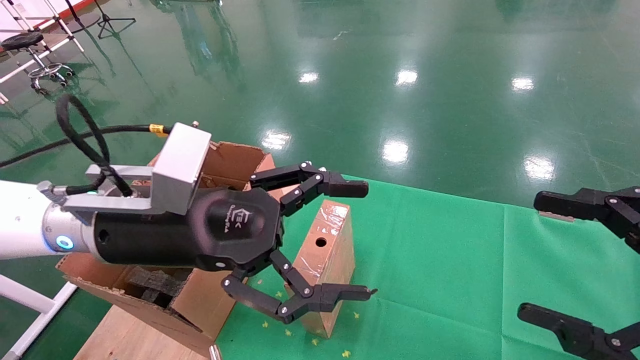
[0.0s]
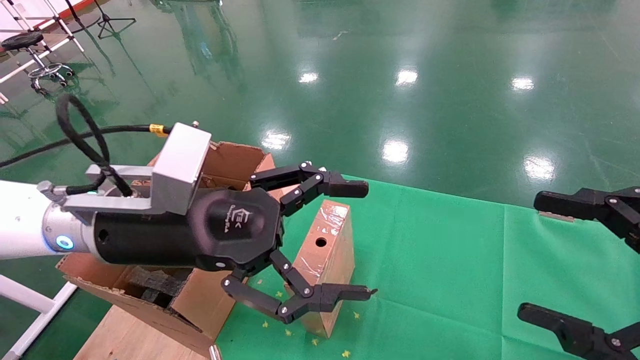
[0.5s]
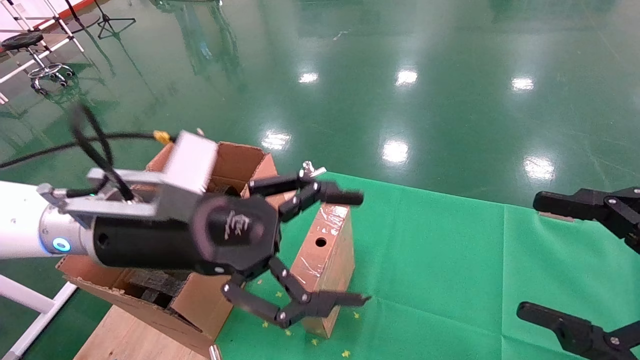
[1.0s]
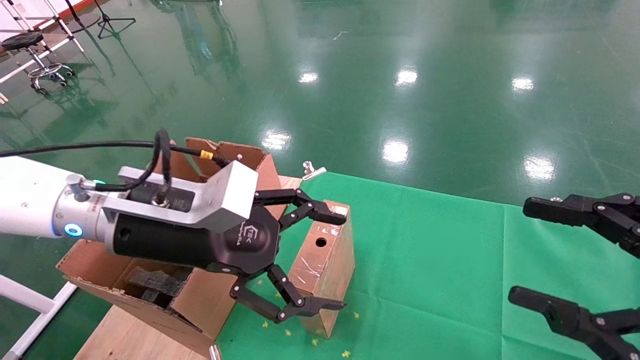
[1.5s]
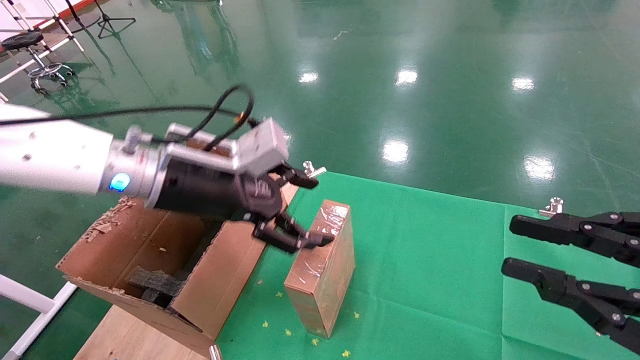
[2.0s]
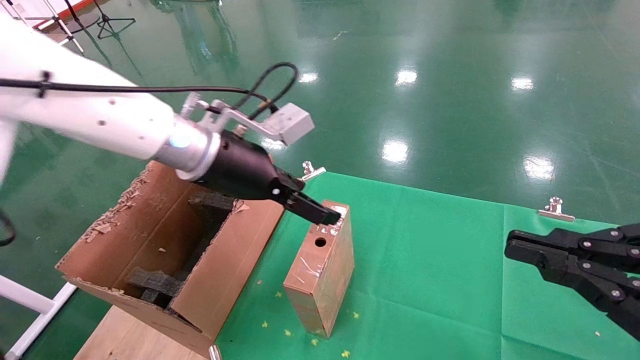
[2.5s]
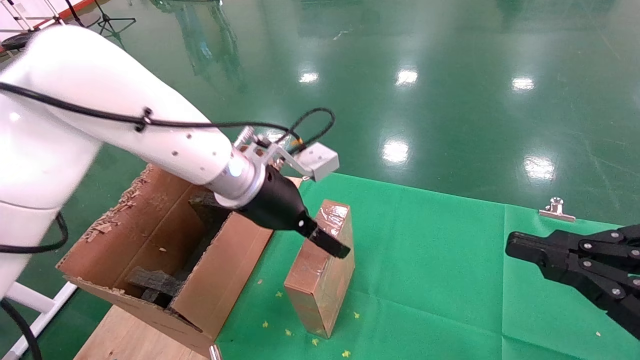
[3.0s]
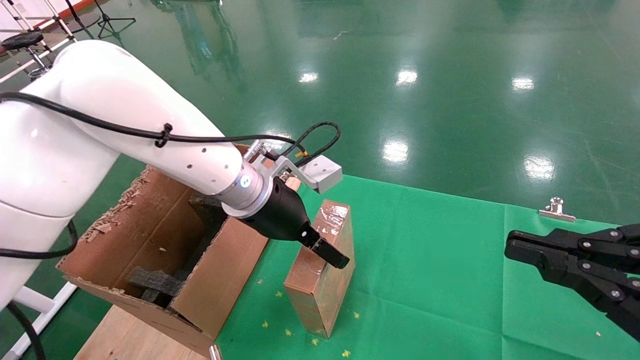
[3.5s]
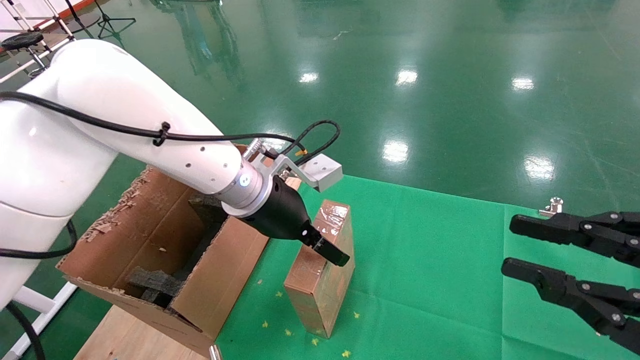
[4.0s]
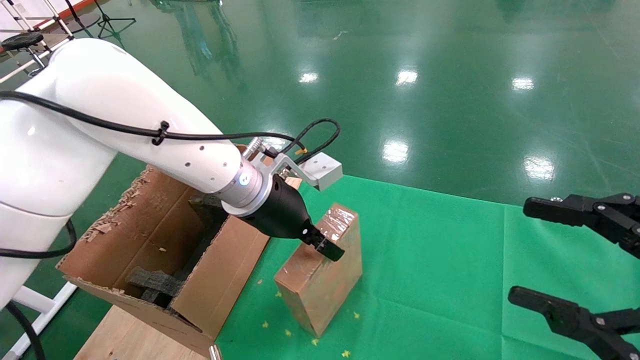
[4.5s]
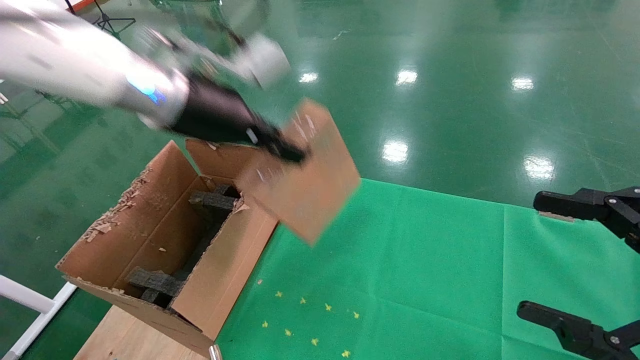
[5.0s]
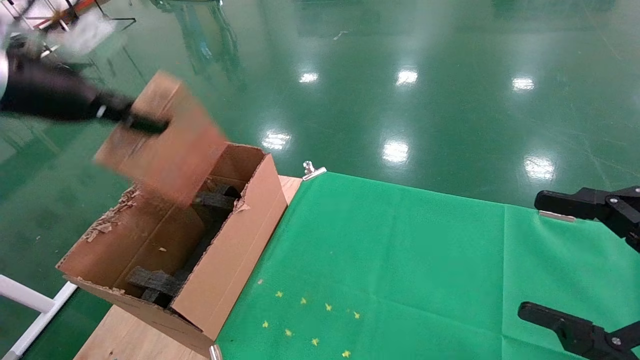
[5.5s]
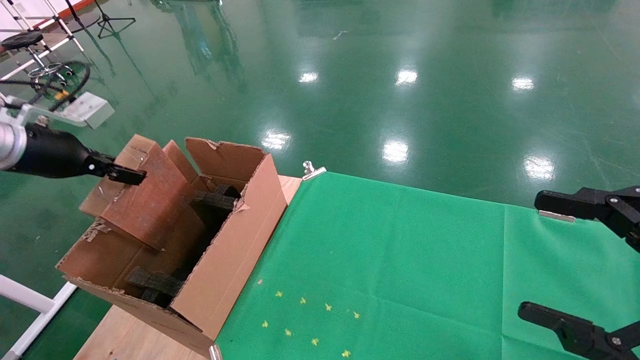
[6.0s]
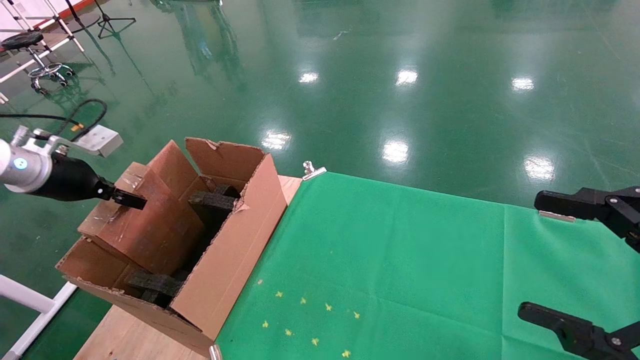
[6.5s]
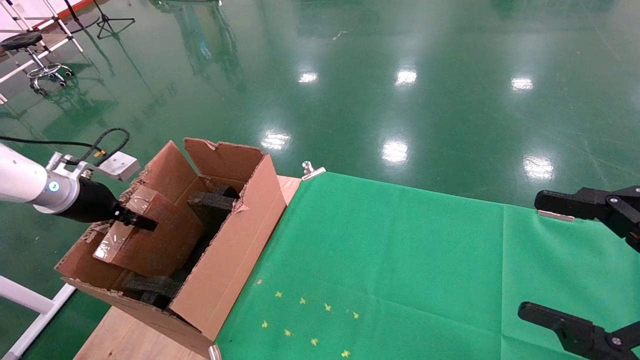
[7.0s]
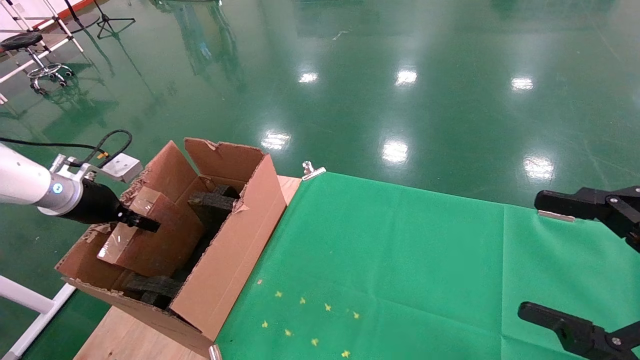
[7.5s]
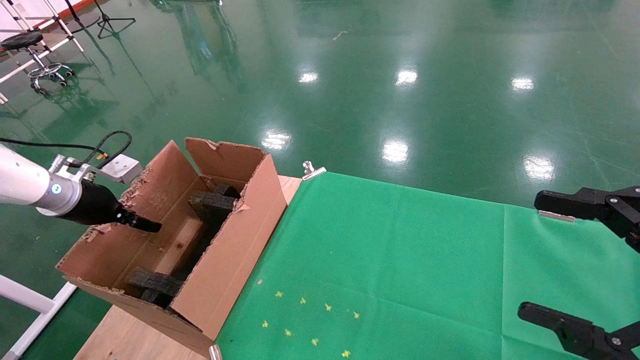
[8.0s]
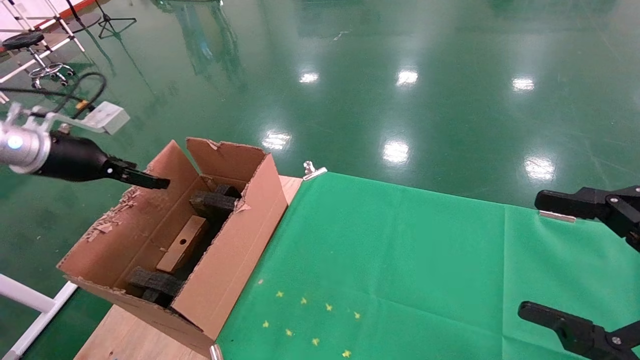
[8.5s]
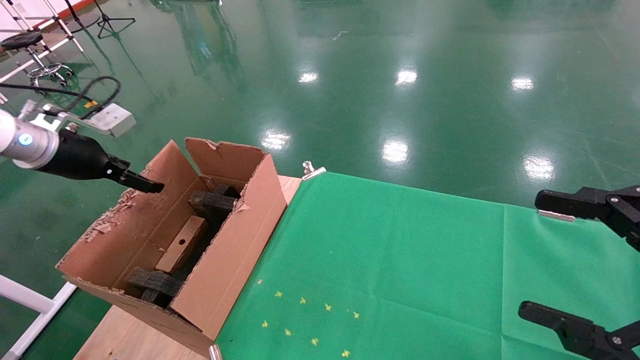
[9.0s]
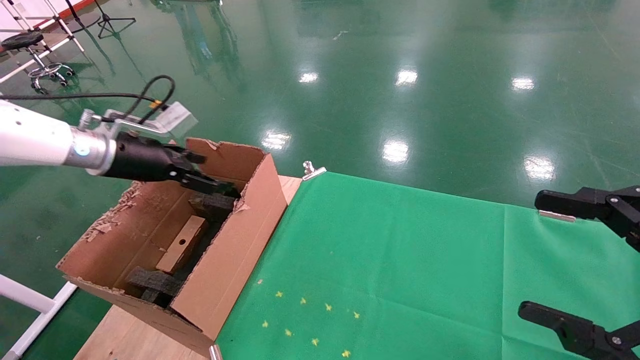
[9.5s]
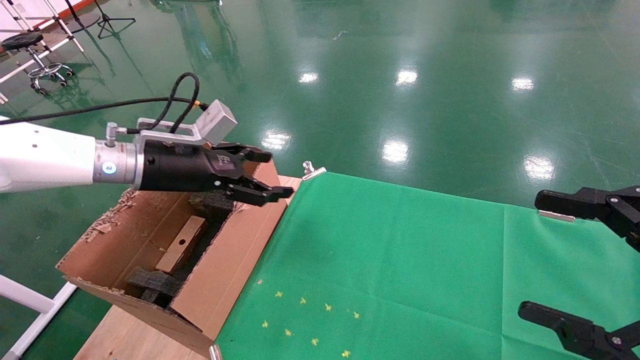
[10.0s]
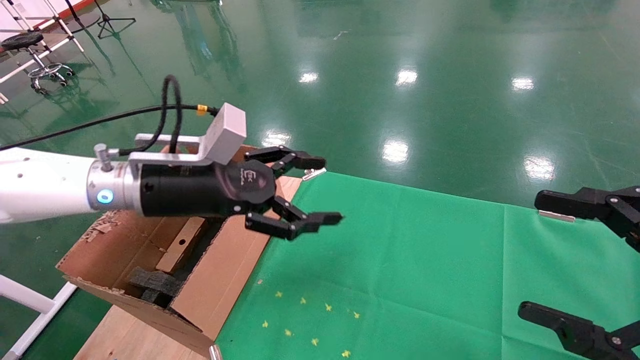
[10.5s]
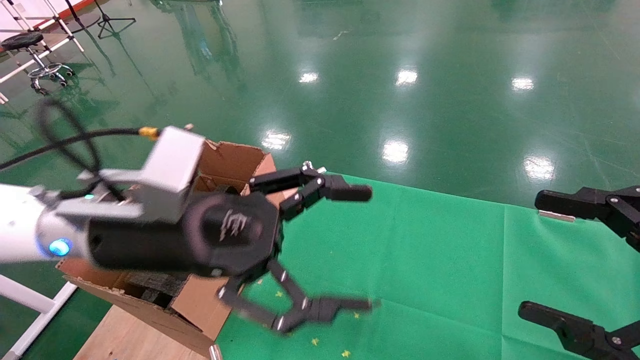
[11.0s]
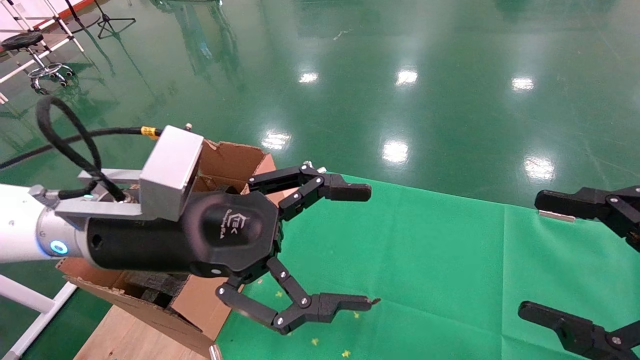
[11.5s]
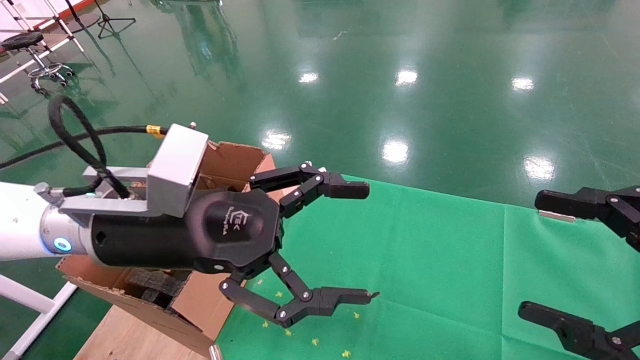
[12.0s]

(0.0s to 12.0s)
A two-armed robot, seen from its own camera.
Task of the whole recording: using a robotic arm to pick up a cardboard box and palace it the carton.
Step, 1.5s - 4.5s: Pick up the mouse and the power cord paper box.
Step, 5.0s - 8.5s: Place the mouse and the power cord paper box into the container.
0.0s - 2.0s: The left gripper heads forward, covering some 10 cm. The right gripper closes up.
2.0s - 4.0s: The left gripper heads to the right and forward, covering approximately 10 cm.
4.0s - 6.0s: The right gripper opens up, while the left gripper moves to the left, about 35 cm, and closes.
6.0s - 8.0s: The left gripper goes roughly 10 cm downward.
8.0s - 10.0s: The left gripper heads to the right, covering approximately 20 cm, and opens.
10.0s - 12.0s: The left gripper is displaced backward and to the right by some 15 cm.

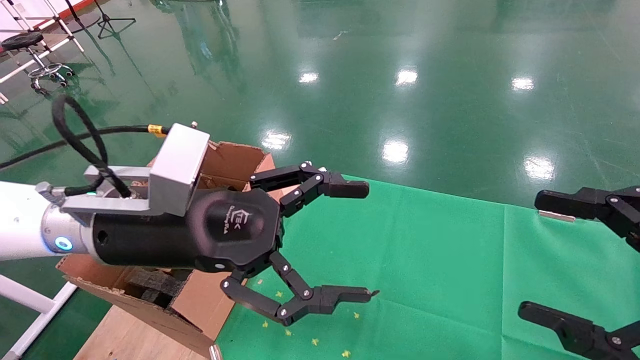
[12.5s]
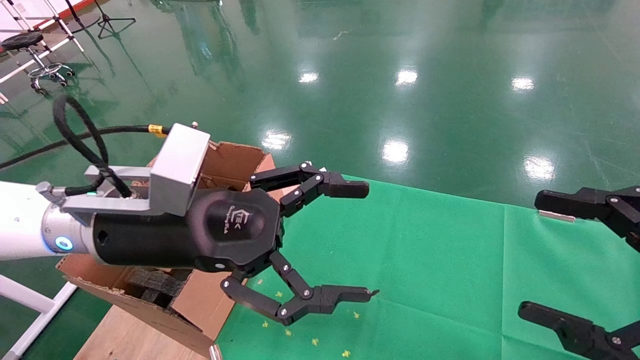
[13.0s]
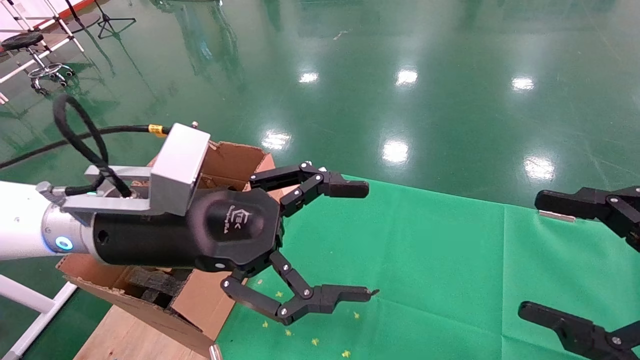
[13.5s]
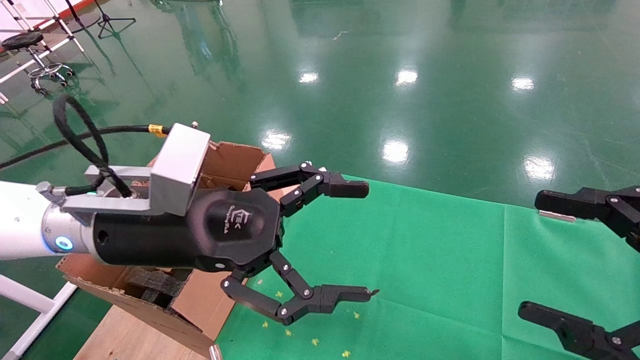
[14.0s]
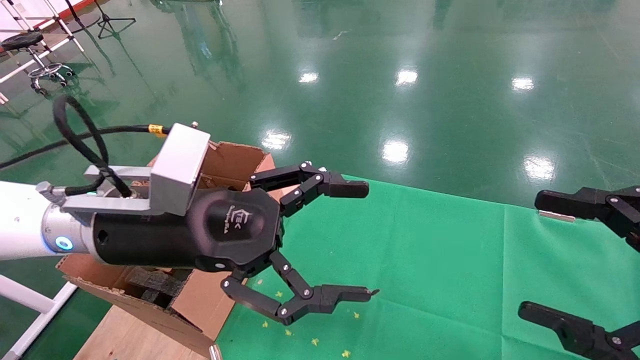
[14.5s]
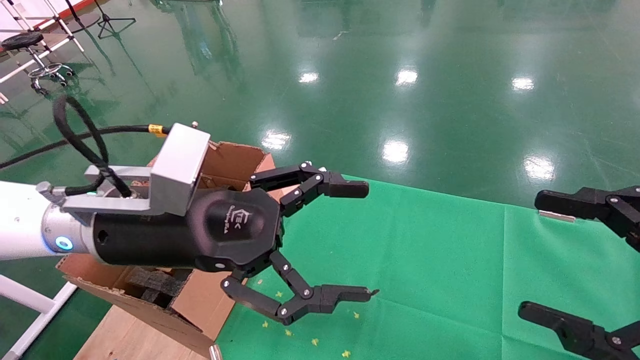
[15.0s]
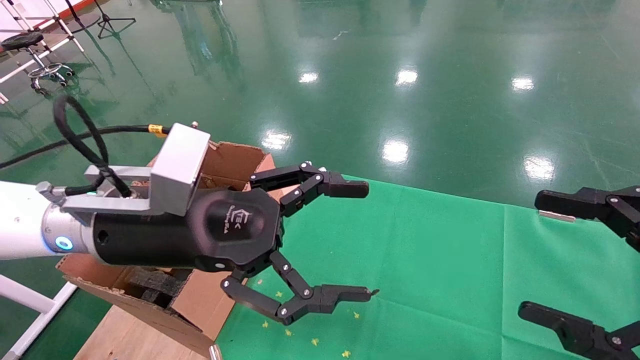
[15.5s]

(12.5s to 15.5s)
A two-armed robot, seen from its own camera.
Task of the whole recording: using a robotic arm to pick up a cardboard box and palace it the carton.
12.5s - 15.5s: The two grippers keep their place.

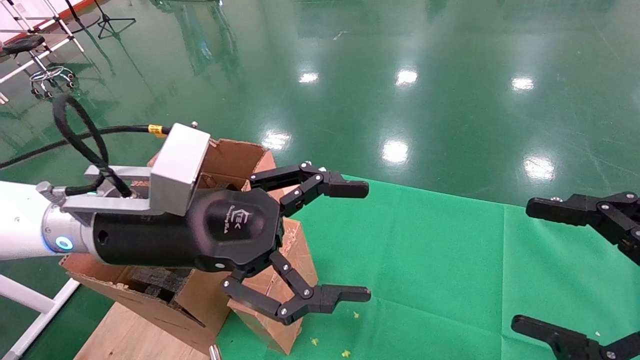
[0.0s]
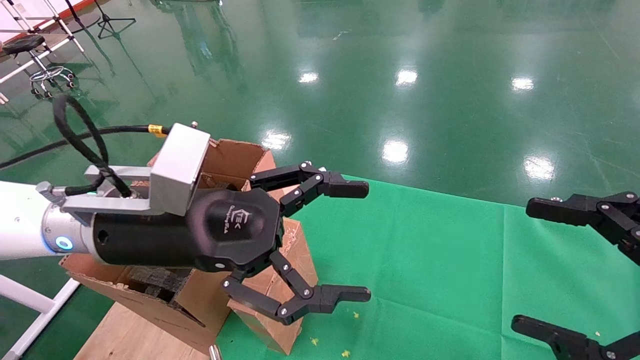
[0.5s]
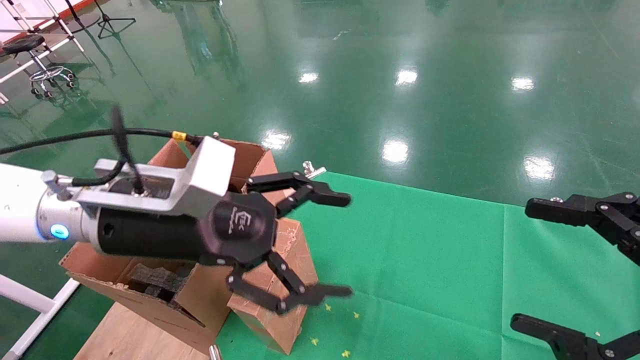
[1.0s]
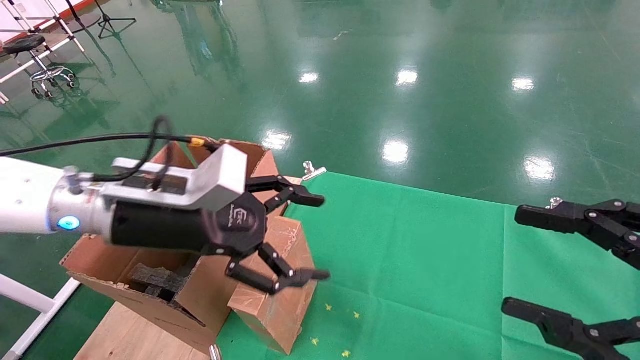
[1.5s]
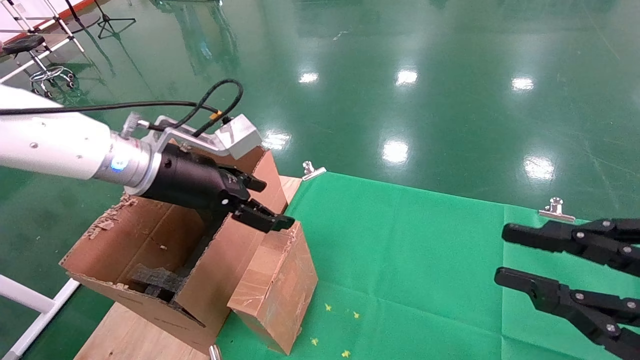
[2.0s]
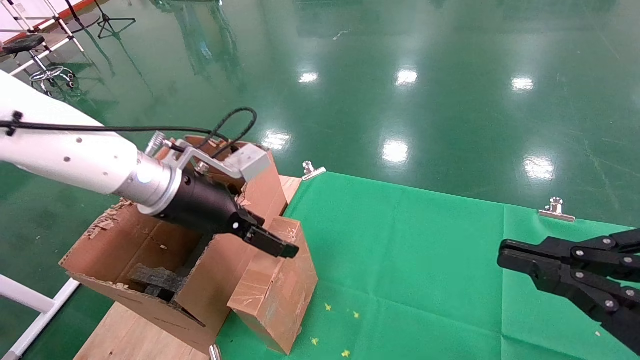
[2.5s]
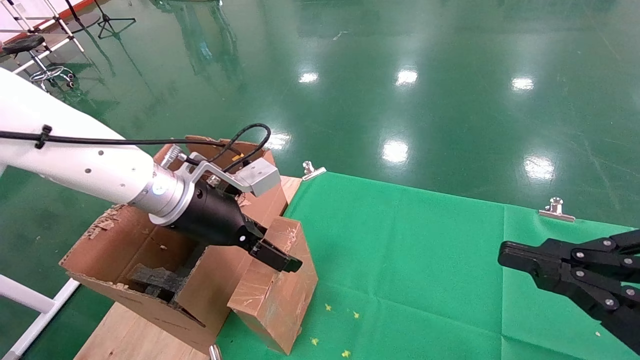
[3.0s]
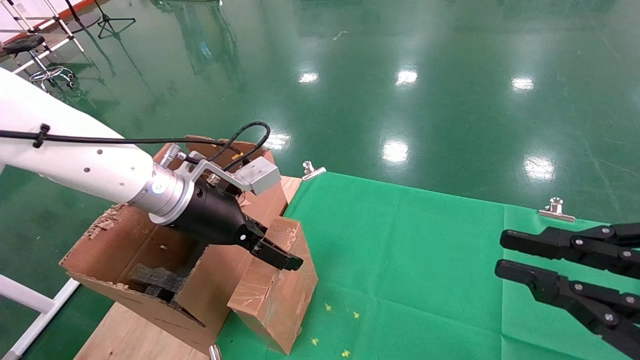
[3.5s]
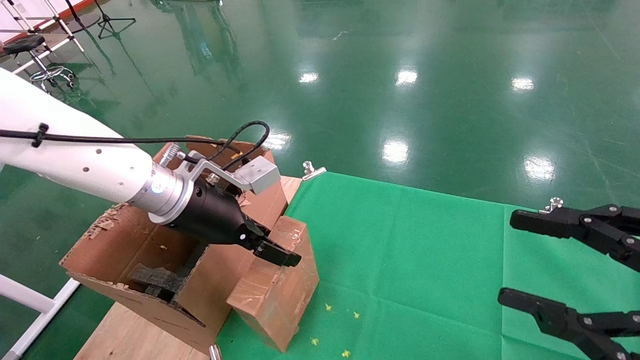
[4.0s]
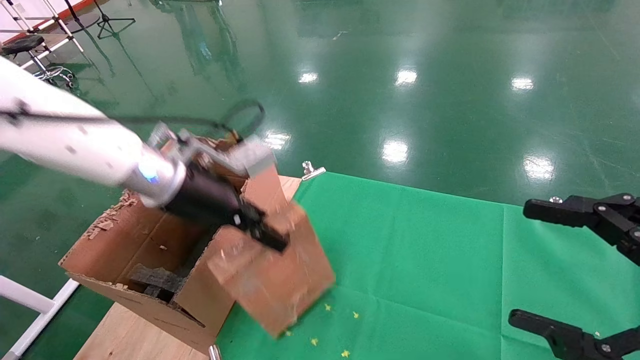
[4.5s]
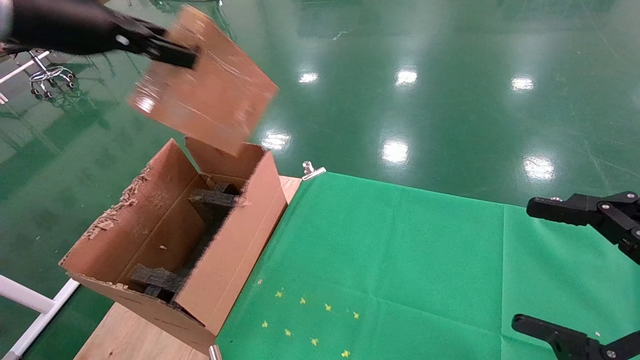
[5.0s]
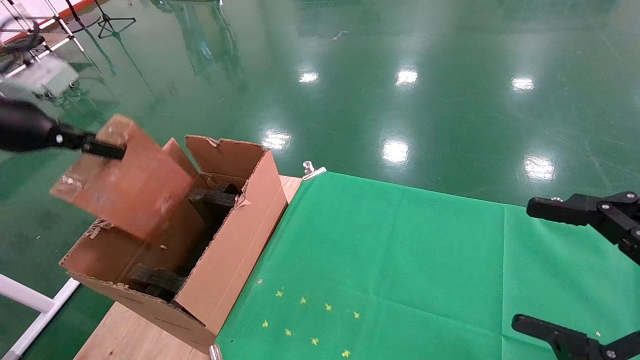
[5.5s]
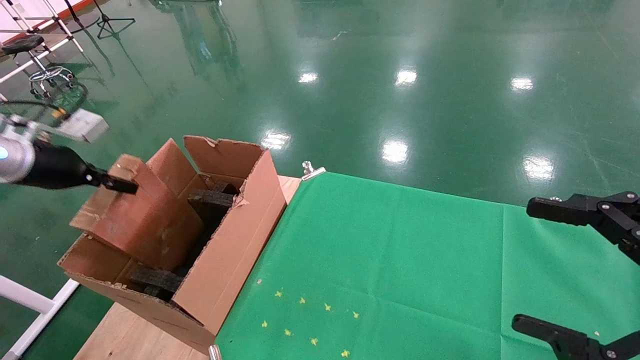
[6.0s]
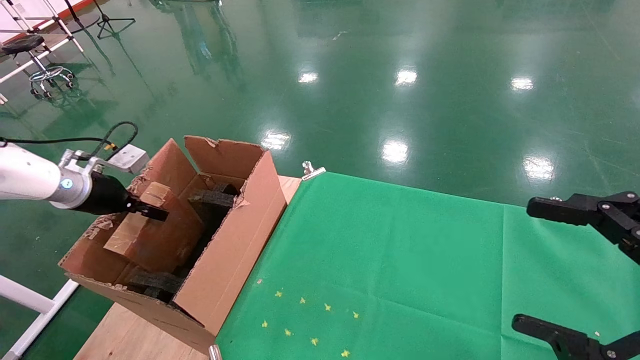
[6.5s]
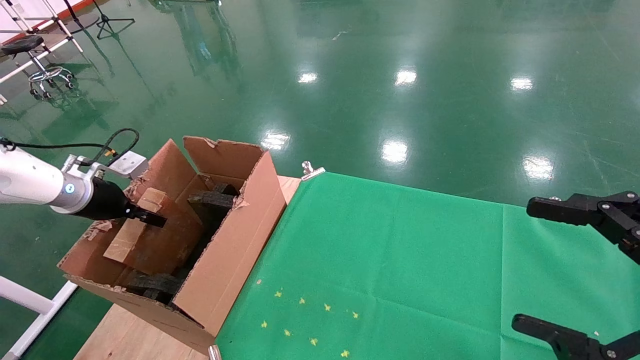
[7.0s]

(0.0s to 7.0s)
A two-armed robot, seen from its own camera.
Task of the whole recording: using a robotic arm to pick up a cardboard box and palace it the carton.
Step, 1.0s - 4.0s: Pick up the mouse and the power cord paper box.
0.0s - 2.0s: The right gripper closes; the left gripper travels forward by about 10 cm.
2.0s - 3.5s: The grippers move only a little.
3.5s - 5.0s: The left gripper shifts roughly 20 cm upward and to the left, and closes up. Meanwhile the right gripper opens.
5.0s - 7.0s: The left gripper heads downward and to the left, covering roughly 25 cm.
